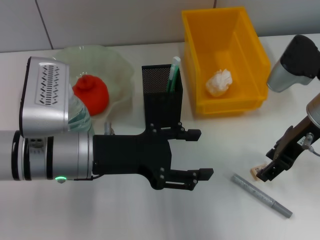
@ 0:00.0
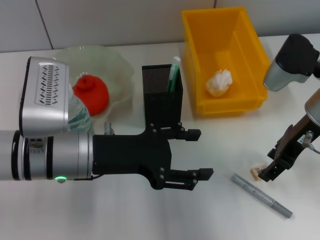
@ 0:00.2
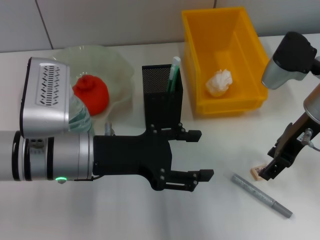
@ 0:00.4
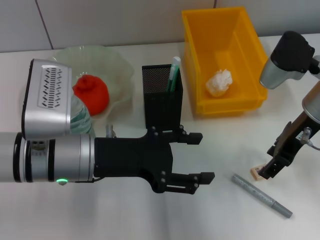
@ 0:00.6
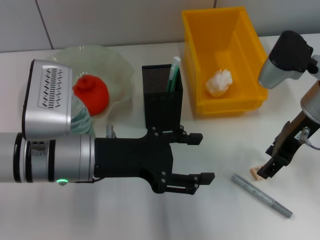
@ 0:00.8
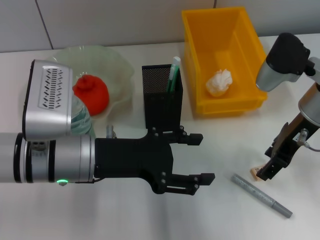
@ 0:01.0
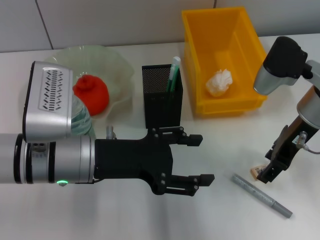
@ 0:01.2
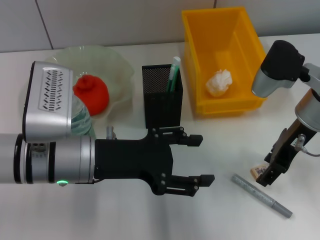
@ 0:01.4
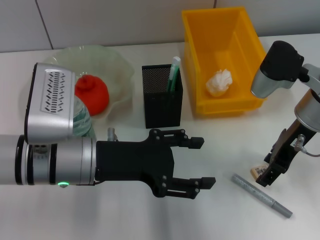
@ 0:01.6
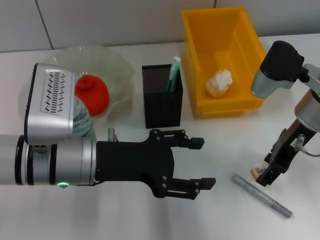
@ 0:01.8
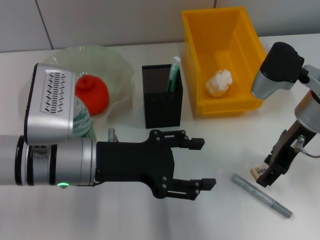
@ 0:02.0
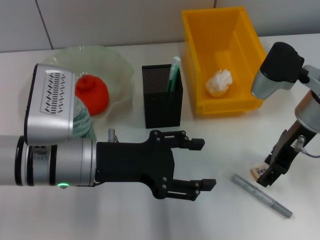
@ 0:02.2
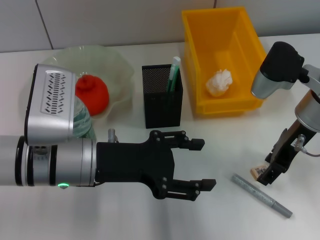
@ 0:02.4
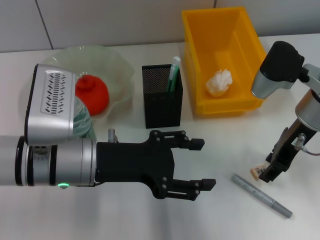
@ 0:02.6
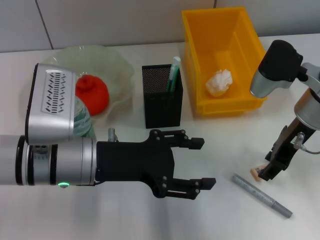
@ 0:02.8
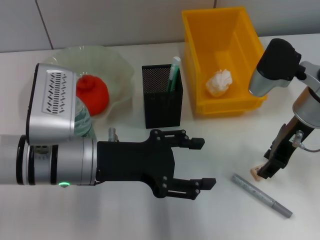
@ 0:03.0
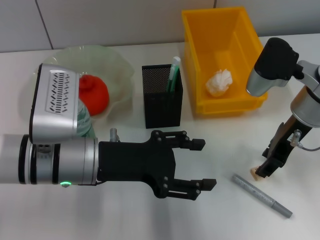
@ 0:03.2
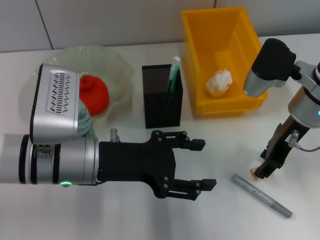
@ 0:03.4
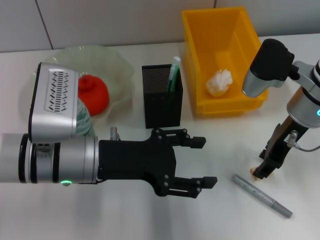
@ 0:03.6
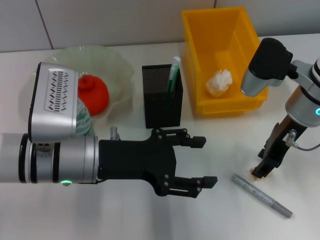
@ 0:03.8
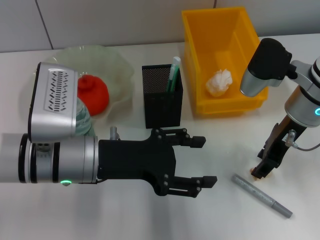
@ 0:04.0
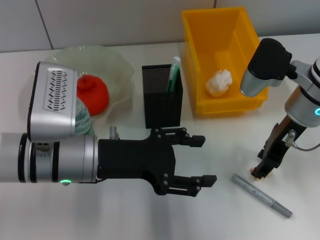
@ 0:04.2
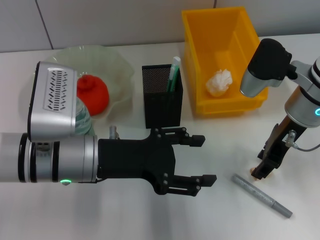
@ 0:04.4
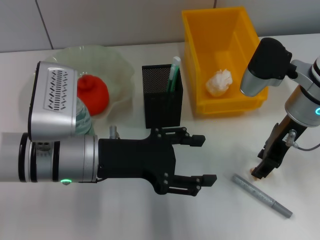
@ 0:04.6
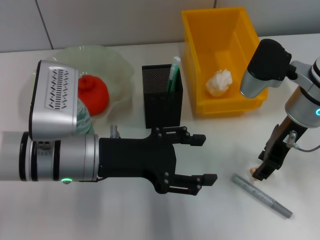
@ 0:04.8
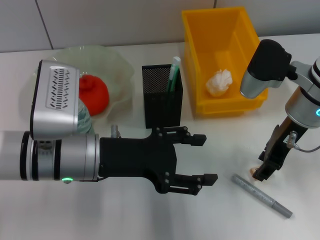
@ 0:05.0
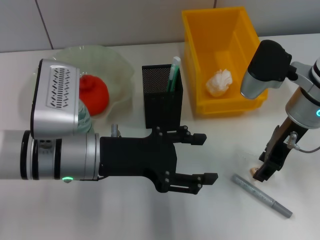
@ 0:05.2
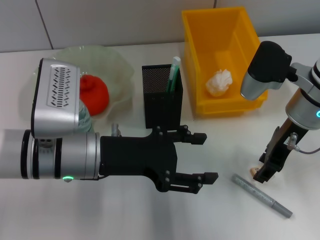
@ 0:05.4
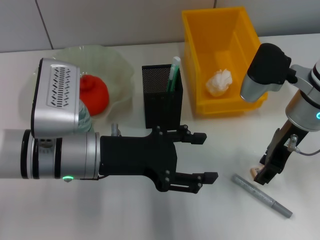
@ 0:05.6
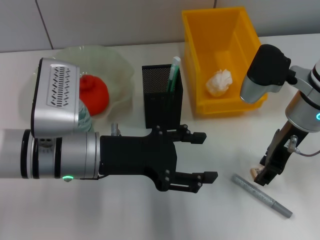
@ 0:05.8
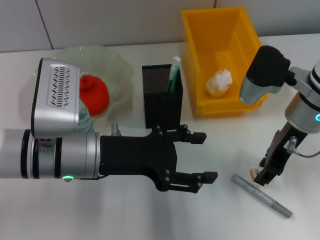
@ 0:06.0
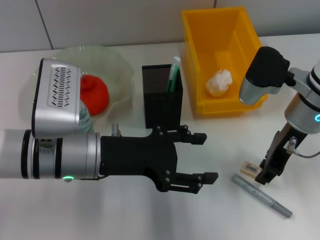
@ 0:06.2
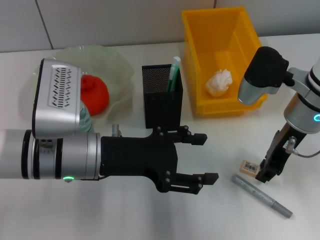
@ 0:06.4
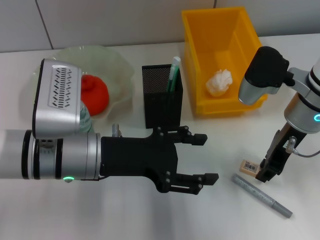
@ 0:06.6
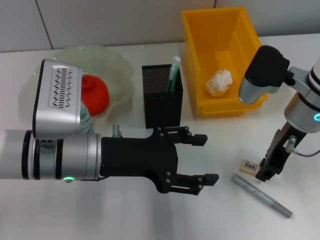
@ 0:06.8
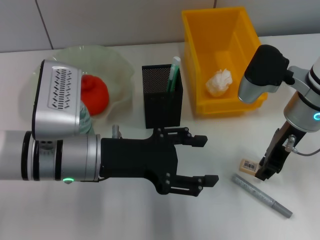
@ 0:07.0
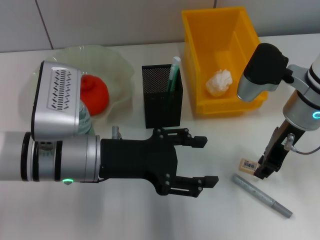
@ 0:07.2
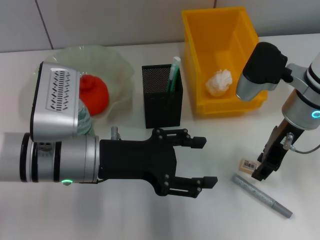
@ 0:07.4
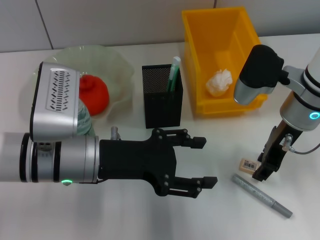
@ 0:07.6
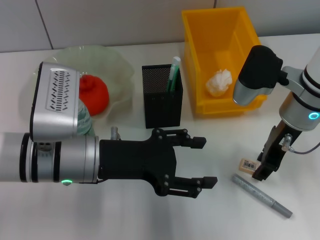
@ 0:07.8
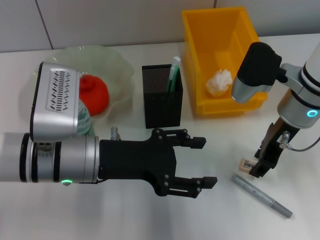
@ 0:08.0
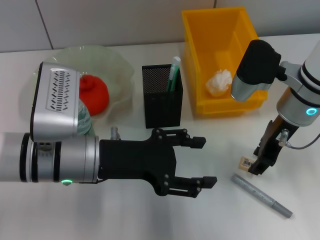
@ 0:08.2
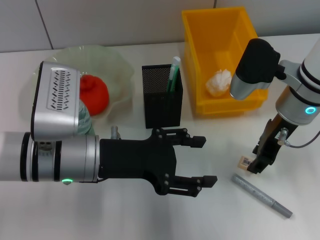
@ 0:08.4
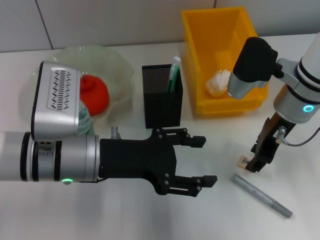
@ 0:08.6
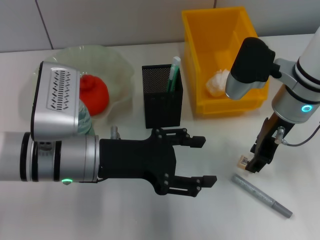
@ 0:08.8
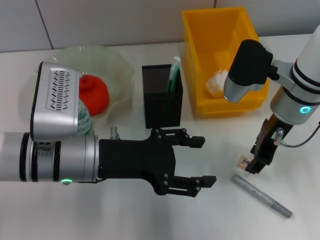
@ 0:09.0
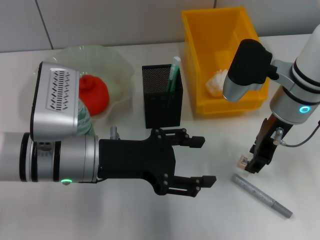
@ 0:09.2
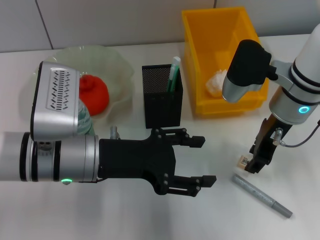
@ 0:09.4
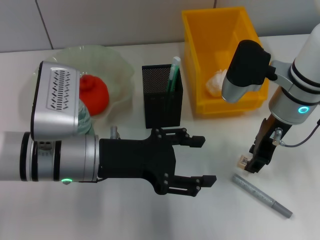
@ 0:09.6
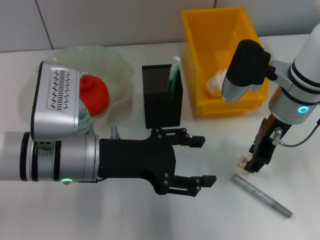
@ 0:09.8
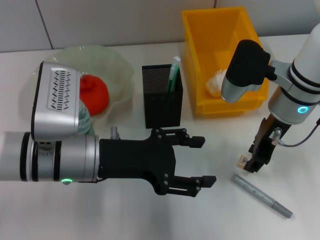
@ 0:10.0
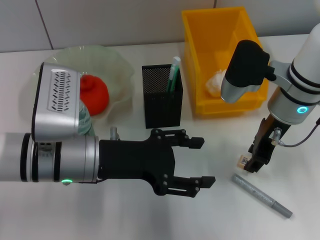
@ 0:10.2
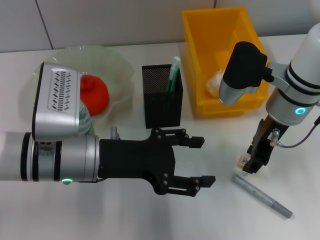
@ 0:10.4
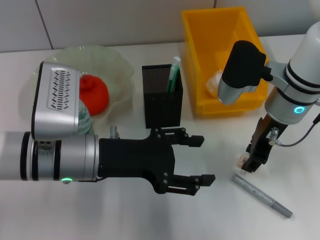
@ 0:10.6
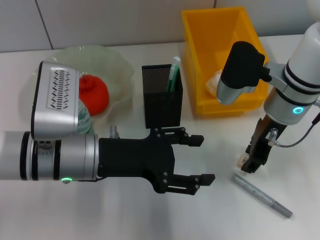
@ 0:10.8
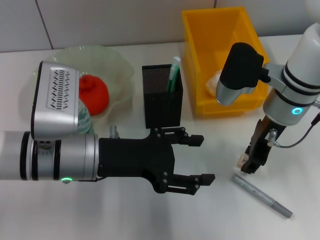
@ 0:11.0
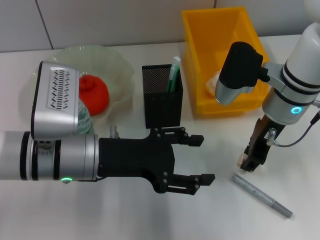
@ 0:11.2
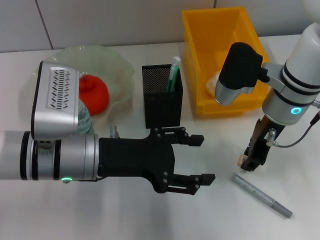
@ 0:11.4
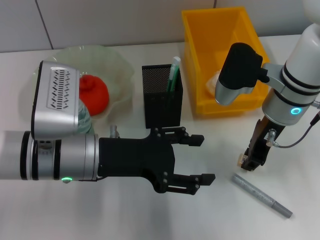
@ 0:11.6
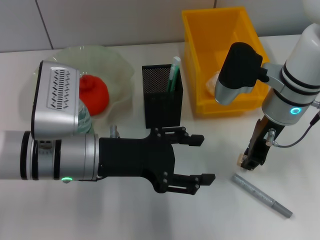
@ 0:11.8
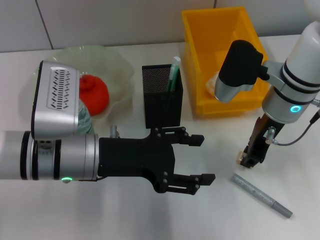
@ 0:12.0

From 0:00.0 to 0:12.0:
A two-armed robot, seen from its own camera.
Step, from 0:00.0 to 0:11.6: Grab the eraser with the right hand.
From 0:00.0 to 0:01.6: The grippers move only a little.
From 0:01.6 to 0:03.0: Neither gripper changes place.
From 0:03.0 to 0:06.0: Both grippers stay about where they are.
From 0:06.0 to 0:07.6: The two grippers keep their place.
From 0:07.6 to 0:09.0: There are only small adjustments of the grippers.
From 0:09.0 to 0:12.0: Neither gripper changes place.

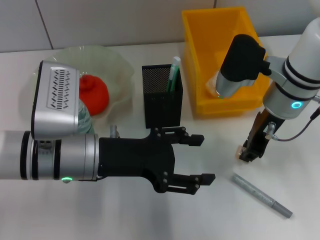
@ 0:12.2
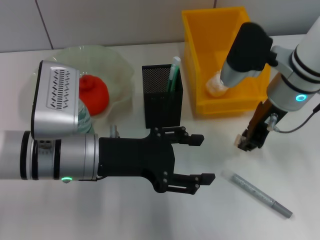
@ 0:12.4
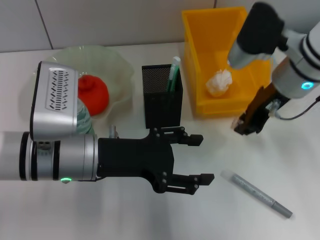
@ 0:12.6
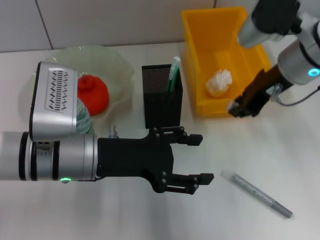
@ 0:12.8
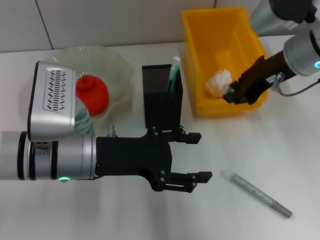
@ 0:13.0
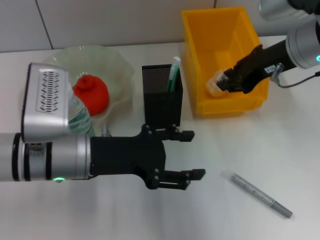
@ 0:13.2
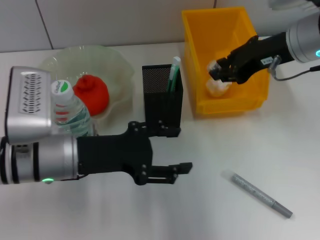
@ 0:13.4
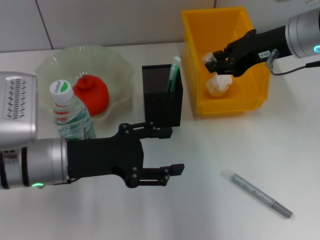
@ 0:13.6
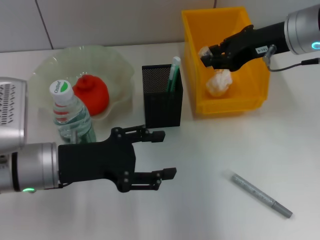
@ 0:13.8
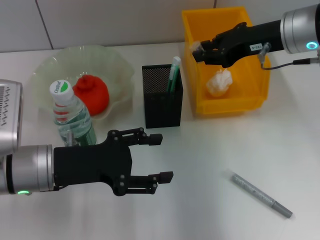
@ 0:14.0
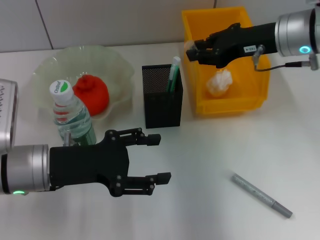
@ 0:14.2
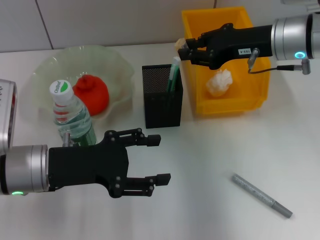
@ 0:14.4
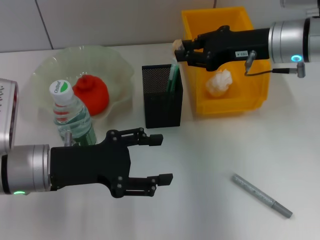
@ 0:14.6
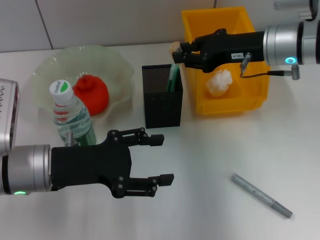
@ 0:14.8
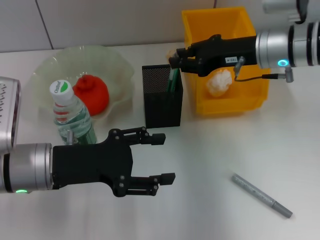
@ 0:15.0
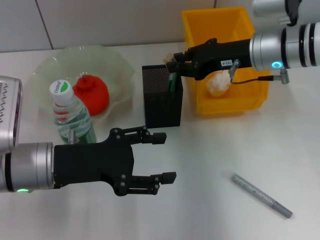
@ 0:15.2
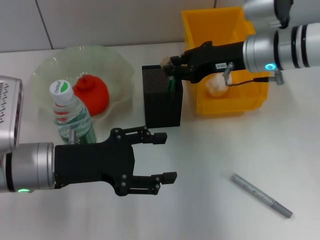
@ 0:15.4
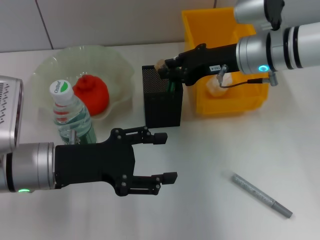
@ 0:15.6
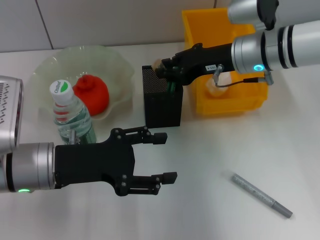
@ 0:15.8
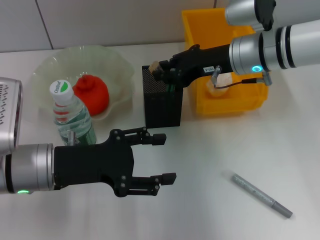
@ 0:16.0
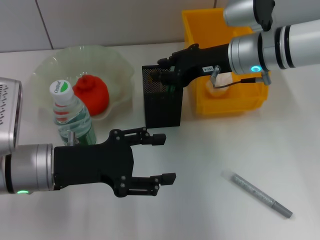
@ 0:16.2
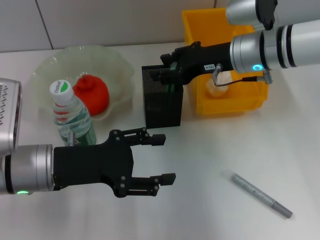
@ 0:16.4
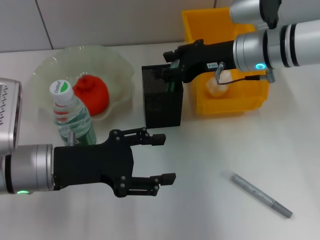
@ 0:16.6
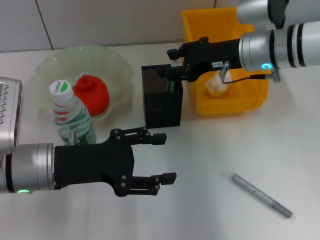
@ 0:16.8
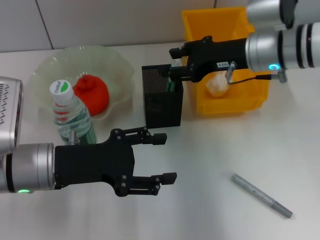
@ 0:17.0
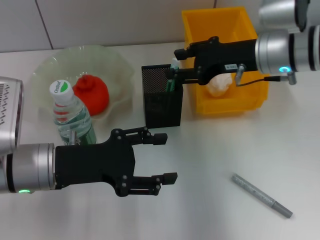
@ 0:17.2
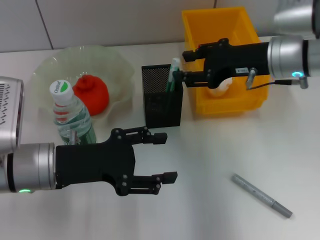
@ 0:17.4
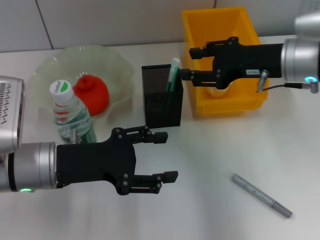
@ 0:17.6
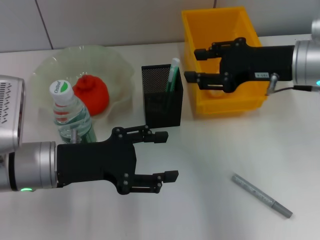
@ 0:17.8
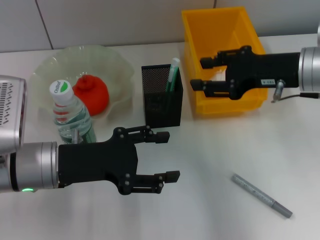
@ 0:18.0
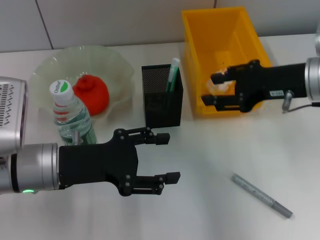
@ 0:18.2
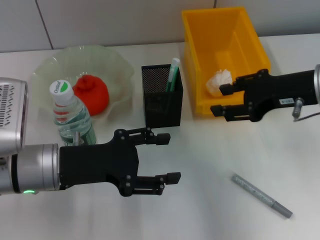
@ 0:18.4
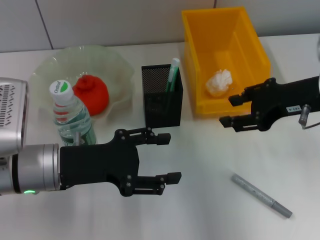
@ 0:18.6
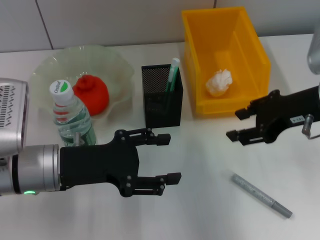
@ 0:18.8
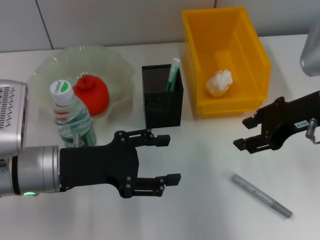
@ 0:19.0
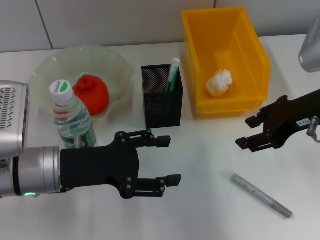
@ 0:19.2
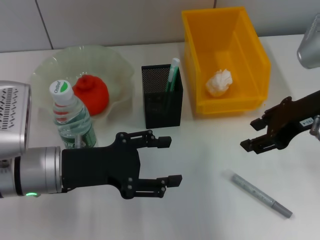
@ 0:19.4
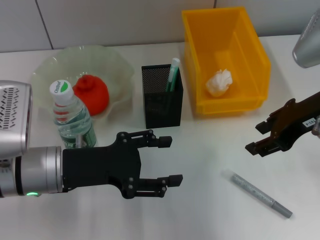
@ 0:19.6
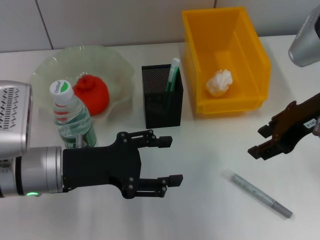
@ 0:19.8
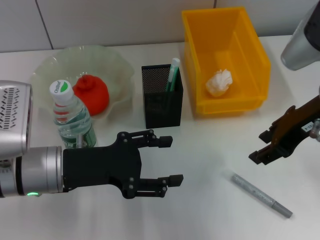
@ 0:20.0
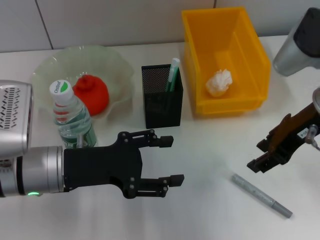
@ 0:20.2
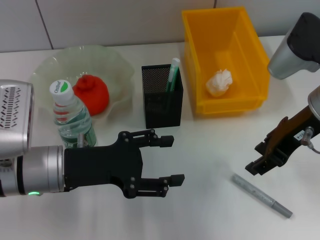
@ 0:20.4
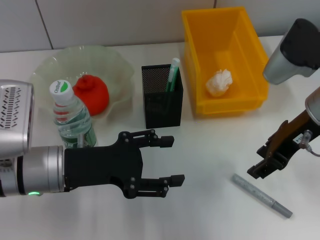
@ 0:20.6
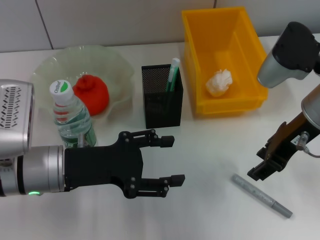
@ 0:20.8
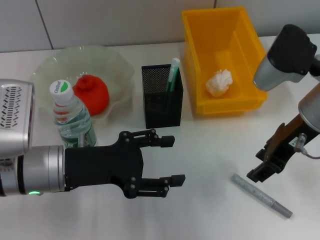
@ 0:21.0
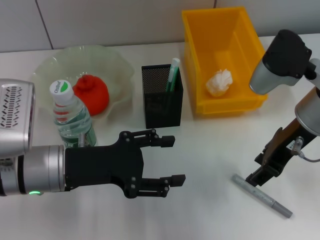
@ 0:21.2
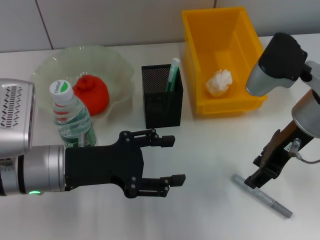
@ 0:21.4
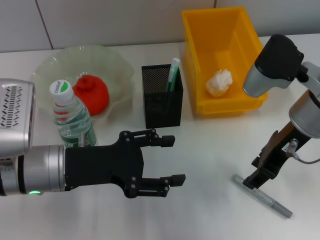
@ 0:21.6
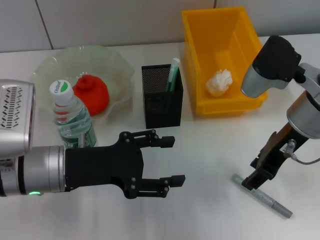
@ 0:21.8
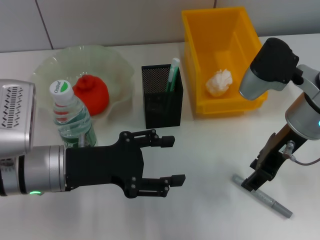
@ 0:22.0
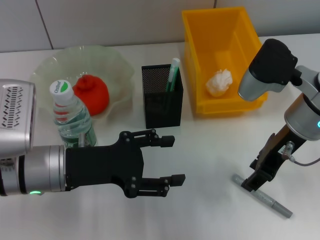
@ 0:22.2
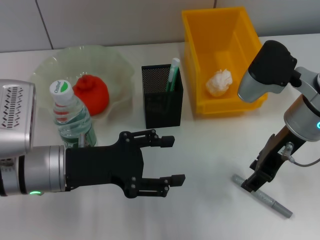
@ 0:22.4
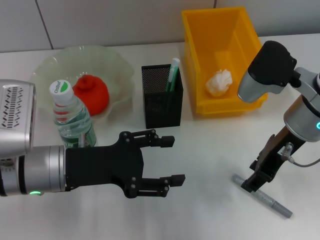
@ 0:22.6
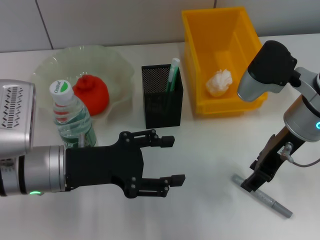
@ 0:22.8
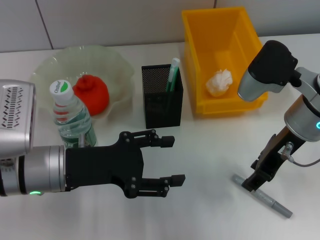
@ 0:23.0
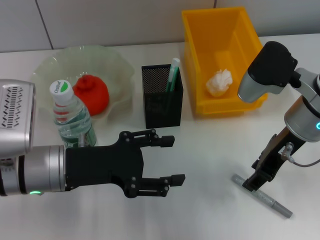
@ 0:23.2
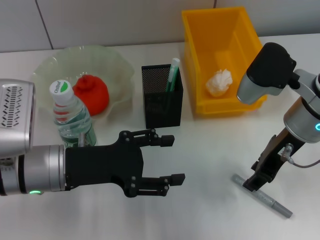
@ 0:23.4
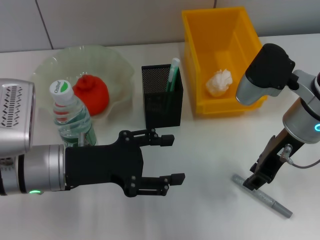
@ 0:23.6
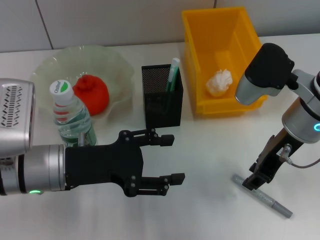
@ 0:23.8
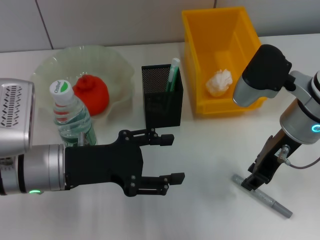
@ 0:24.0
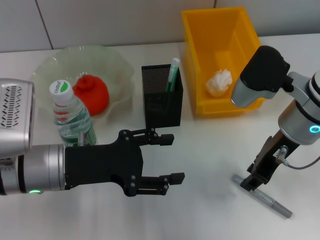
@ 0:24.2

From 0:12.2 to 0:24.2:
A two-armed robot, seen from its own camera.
Step, from 0:12.2 to 0:16.4: Put the eraser into the pen holder with the right hand.
From 0:12.2 to 0:13.8: The left gripper goes some 5 cm to the left, while the right gripper goes roughly 5 cm upward.
From 0:13.8 to 0:15.2: The right gripper travels downward by approximately 5 cm.
From 0:15.2 to 0:16.6: The right gripper opens its fingers.
From 0:16.6 to 0:18.2: The right gripper travels backward and to the right by about 10 cm.
From 0:18.2 to 0:19.8: The right gripper moves approximately 5 cm.
From 0:19.8 to 0:21.2: The grippers move only a little.
From 0:21.2 to 0:22.6: The grippers make only small movements.
From 0:22.6 to 0:24.2: Both grippers stay about where they are.
